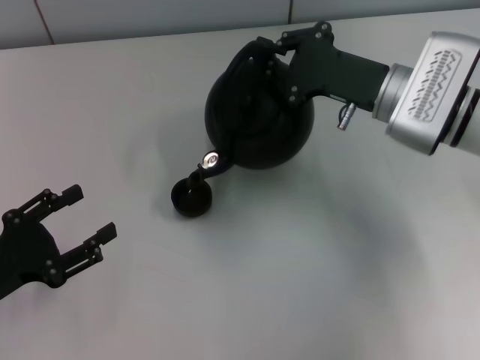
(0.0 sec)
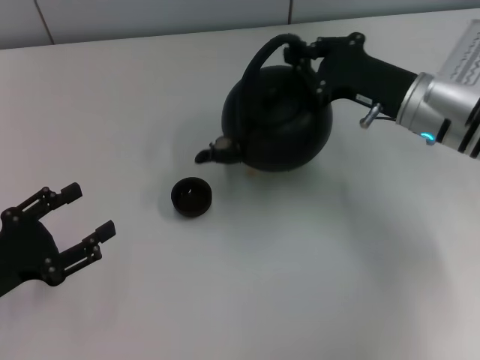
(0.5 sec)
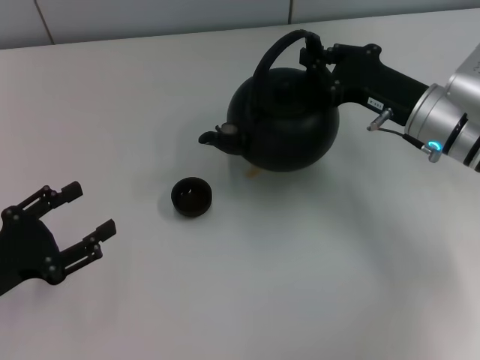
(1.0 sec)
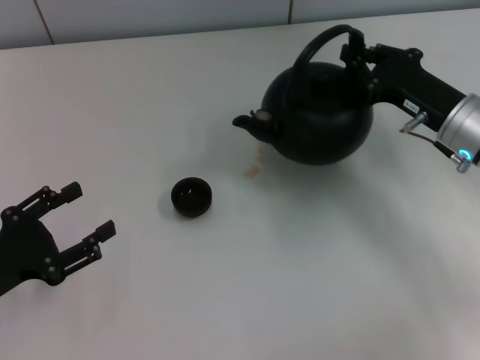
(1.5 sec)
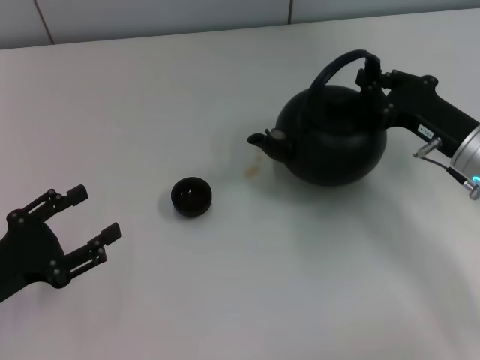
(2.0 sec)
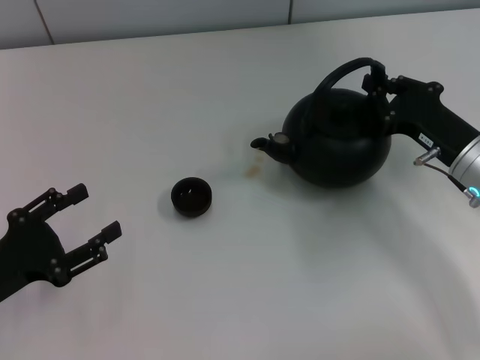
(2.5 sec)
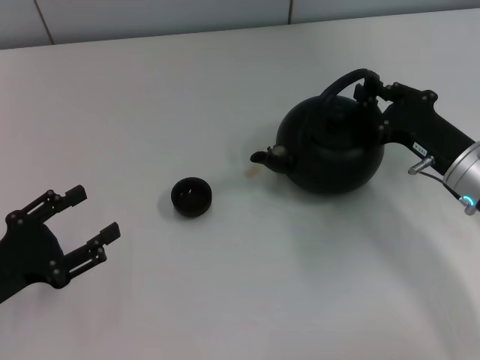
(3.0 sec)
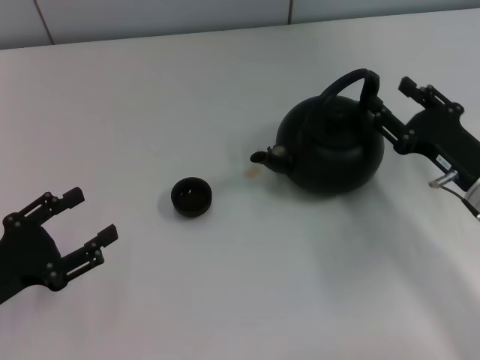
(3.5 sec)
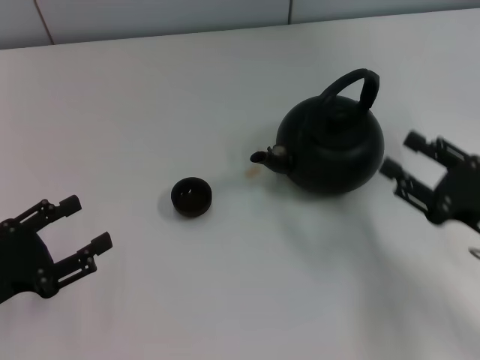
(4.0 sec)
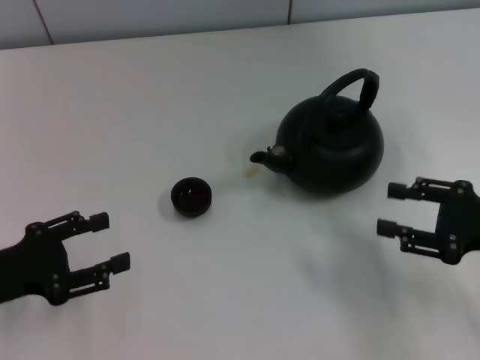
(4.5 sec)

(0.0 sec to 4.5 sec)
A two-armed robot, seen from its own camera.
Task of the whole recording: Grasp the handle of the teapot with one hand and pour tea into the teacup.
Step, 1.0 sec - 3.5 sec: Put down the teapot with the right gripper.
0.0 sec - 2.0 sec: The right gripper travels to the right and backward by some 10 cm.
2.0 sec - 4.5 sec: The right gripper shifts about 10 cm backward and to the right, and opens its fingers.

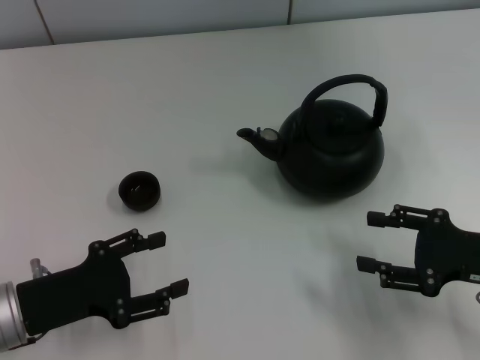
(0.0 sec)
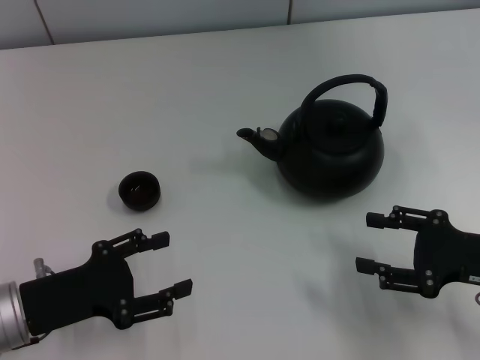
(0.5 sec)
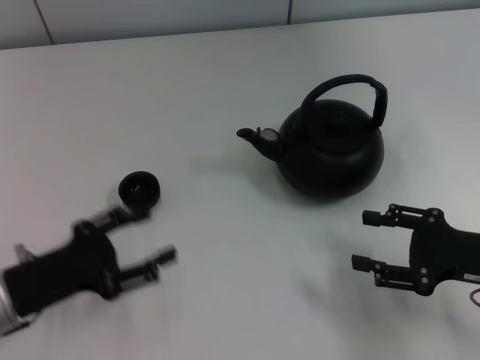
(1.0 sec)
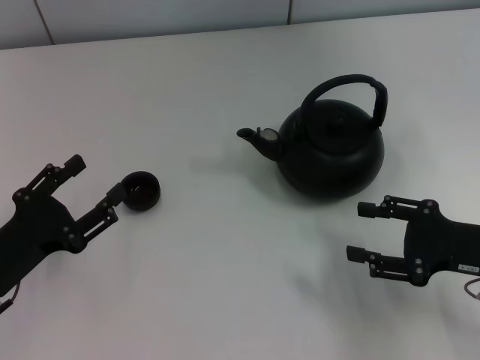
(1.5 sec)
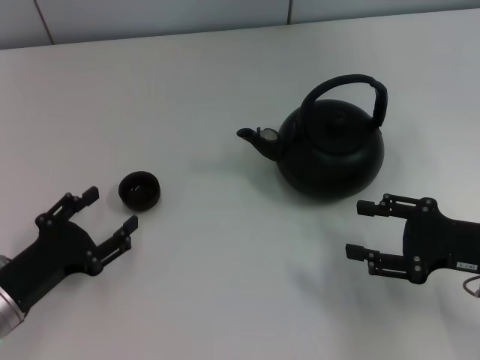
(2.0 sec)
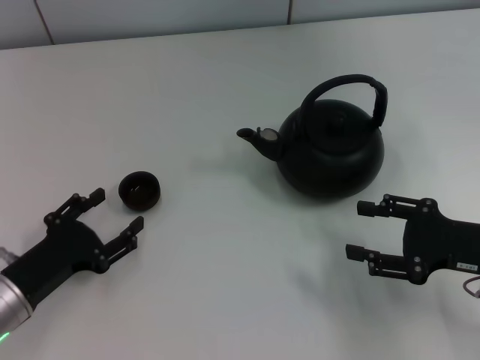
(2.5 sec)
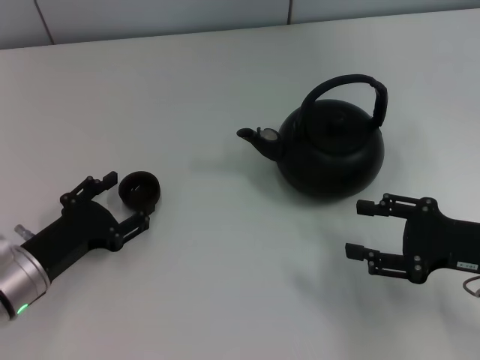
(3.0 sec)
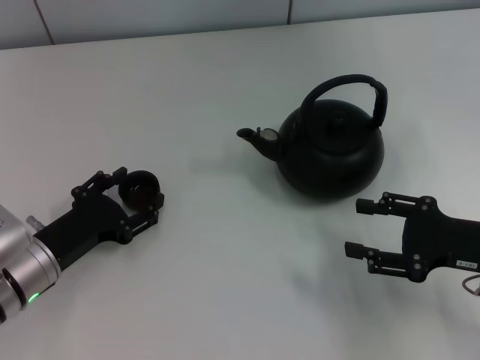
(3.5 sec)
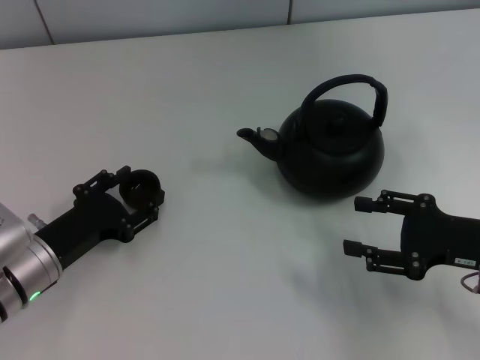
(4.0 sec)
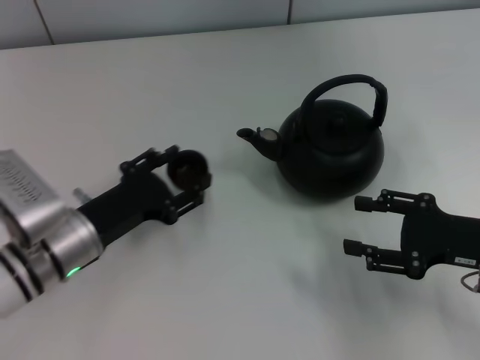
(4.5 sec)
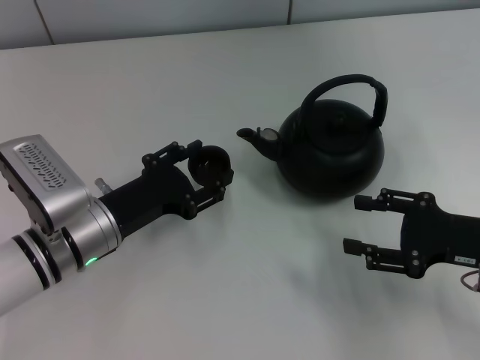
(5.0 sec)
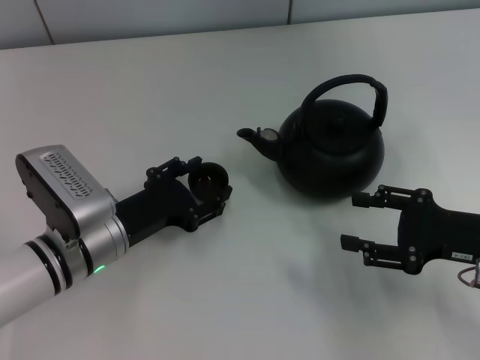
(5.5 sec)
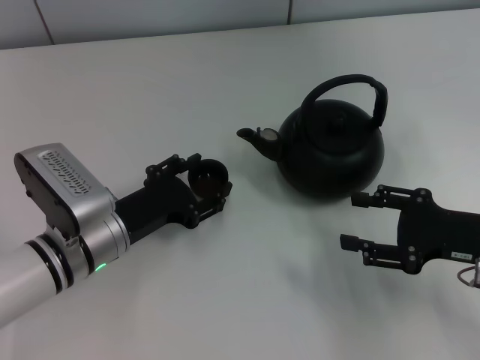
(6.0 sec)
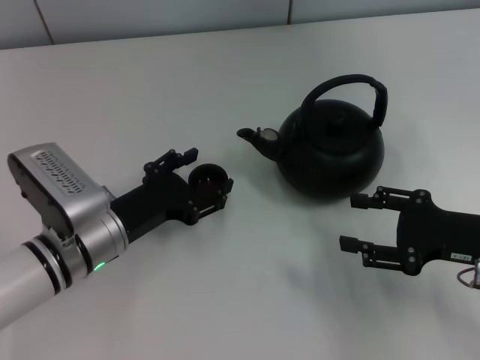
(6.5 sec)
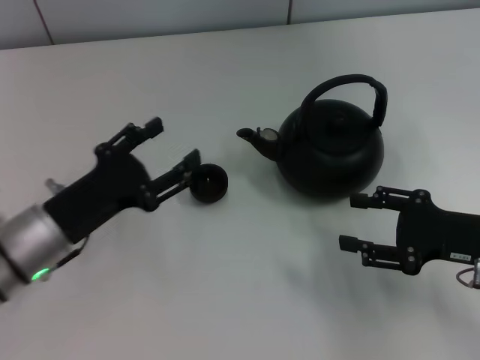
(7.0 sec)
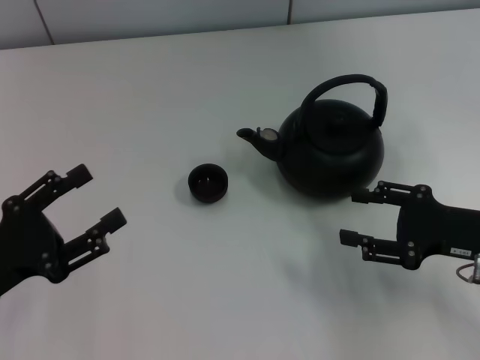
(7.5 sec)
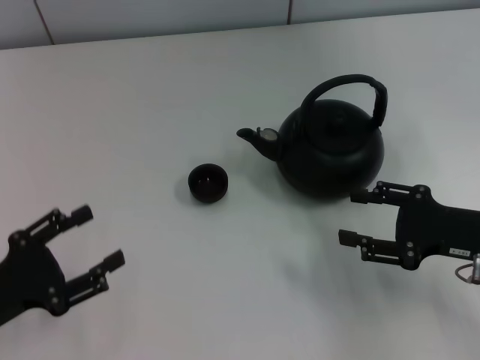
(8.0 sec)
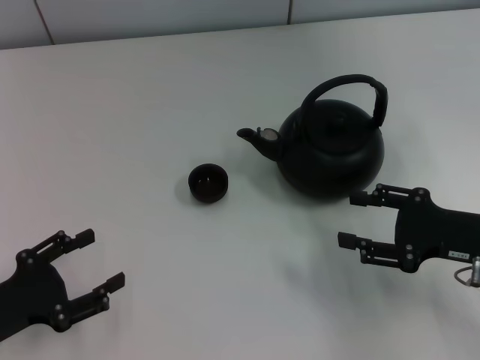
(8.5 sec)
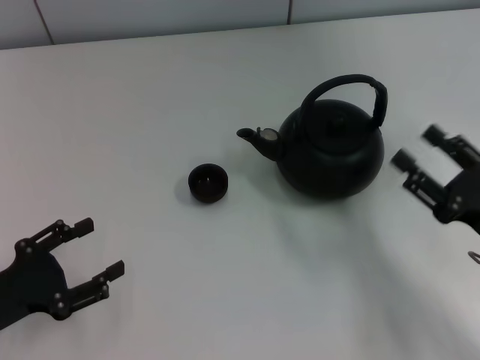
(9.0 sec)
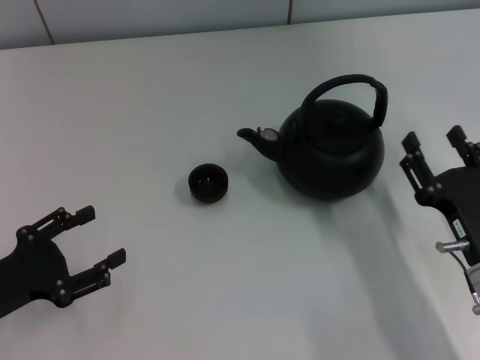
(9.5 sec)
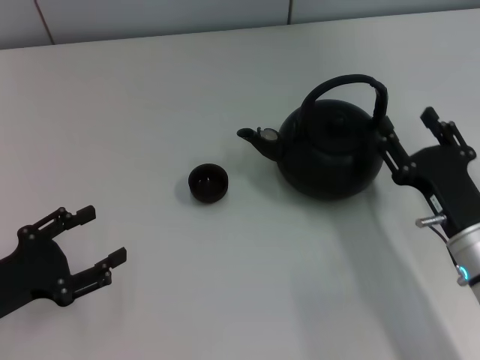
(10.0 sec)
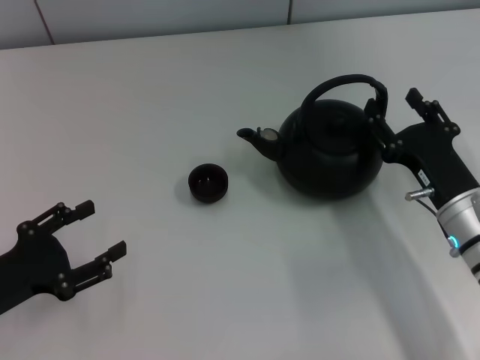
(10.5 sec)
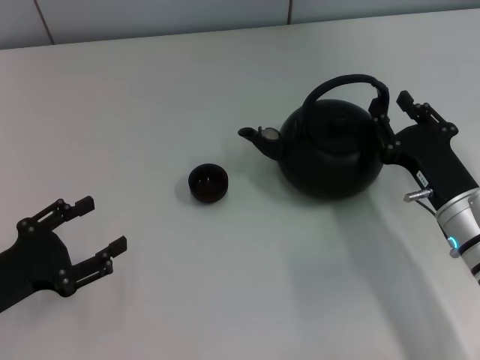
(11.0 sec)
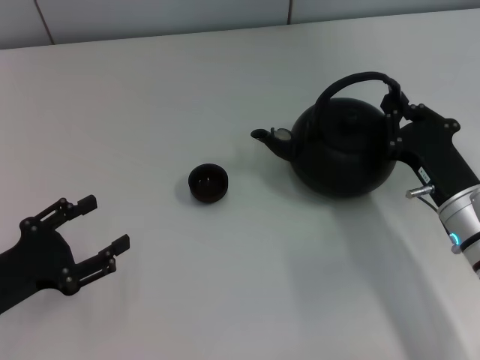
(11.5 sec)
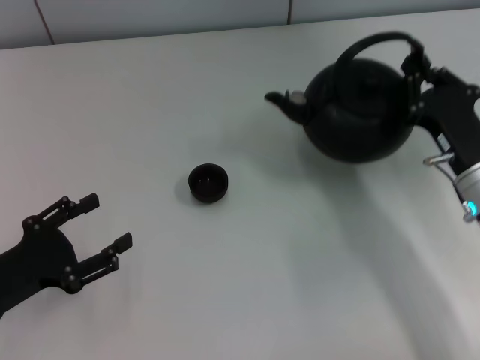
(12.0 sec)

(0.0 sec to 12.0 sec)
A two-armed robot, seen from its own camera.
Task of the whole recording: Grasp the handle of the teapot with one hand and pour tea into the teacup.
Step, 0.0 sec - 4.0 sec: Pick up the teacup with the left gripper.
Step, 4.5 sec - 7.0 sec: Place the teacup in the center of view with the left gripper.
Step, 7.5 sec - 12.0 sec: Pick up the teapot with the right gripper.
2.0 sec - 4.0 sec: The left gripper moves roughly 5 cm.
4.0 sec - 6.0 sec: The left gripper is displaced to the right by roughly 5 cm.
6.0 sec - 8.0 sec: The left gripper shifts roughly 15 cm to the left and backward.
8.0 sec - 10.0 sec: The right gripper travels to the left by some 5 cm.
10.0 sec - 12.0 sec: The right gripper heads forward, covering some 5 cm, and closes.

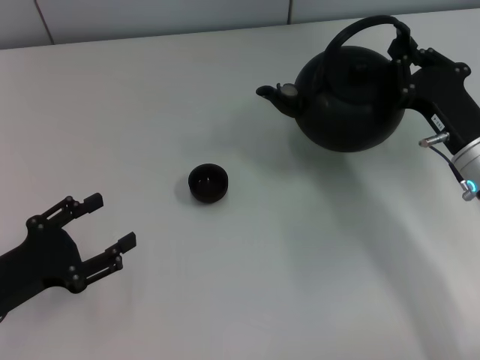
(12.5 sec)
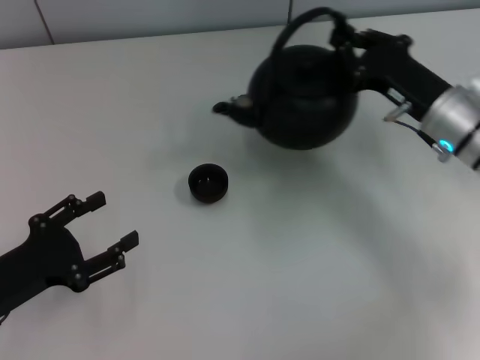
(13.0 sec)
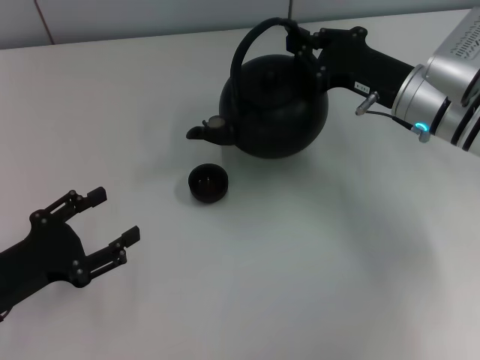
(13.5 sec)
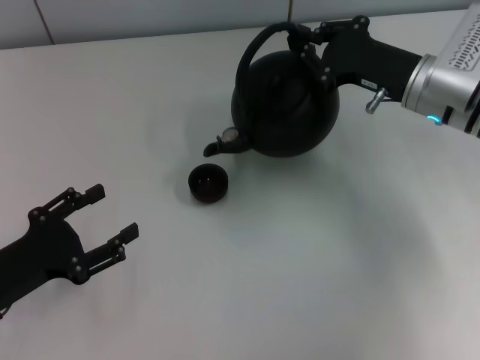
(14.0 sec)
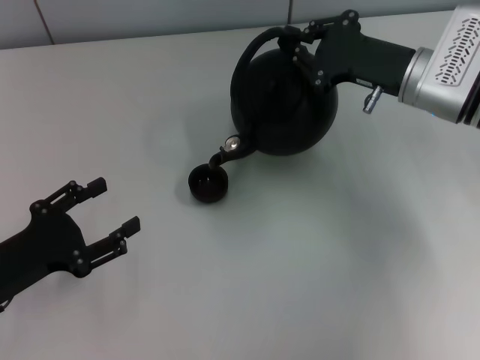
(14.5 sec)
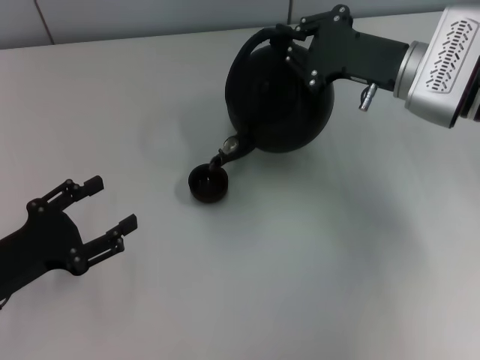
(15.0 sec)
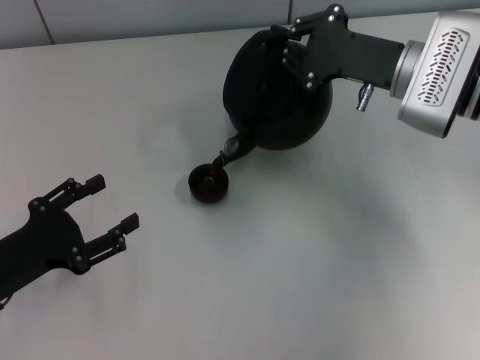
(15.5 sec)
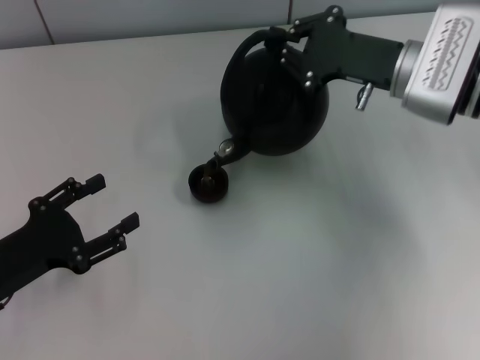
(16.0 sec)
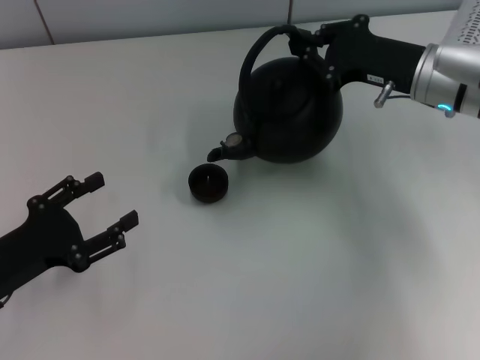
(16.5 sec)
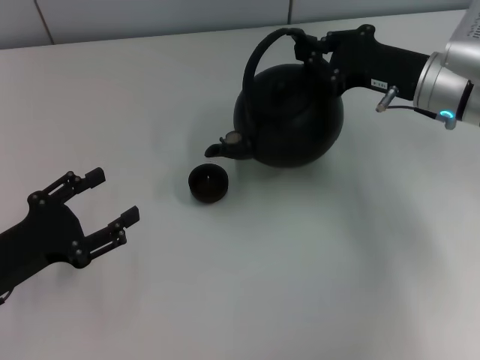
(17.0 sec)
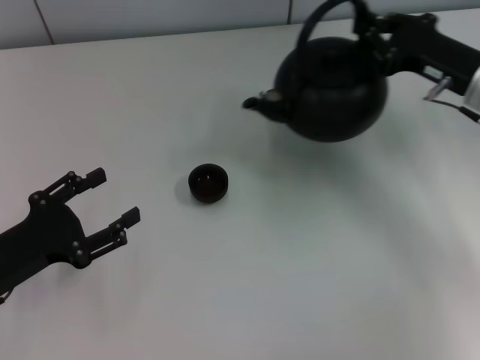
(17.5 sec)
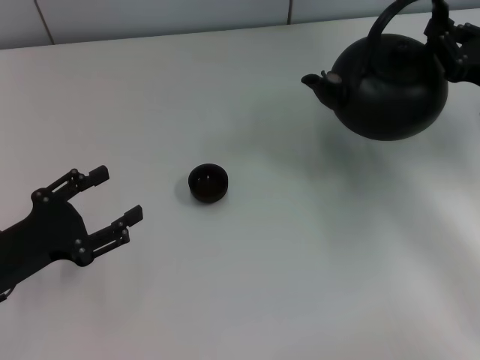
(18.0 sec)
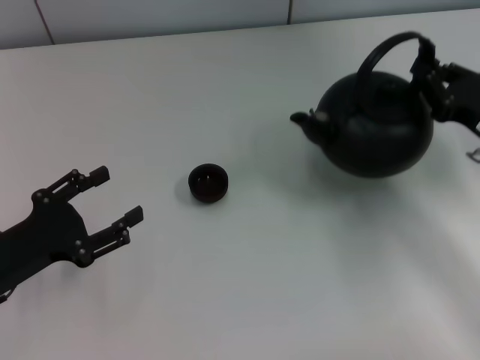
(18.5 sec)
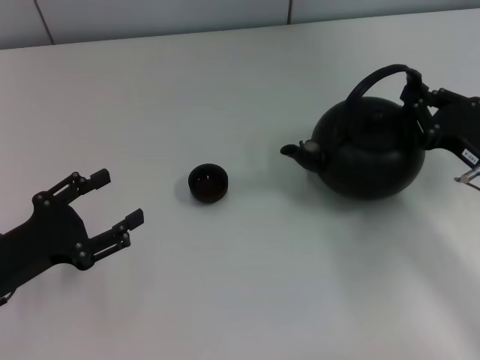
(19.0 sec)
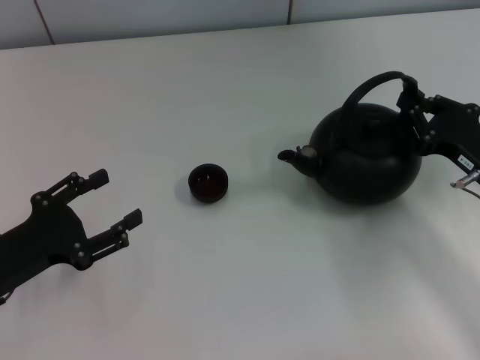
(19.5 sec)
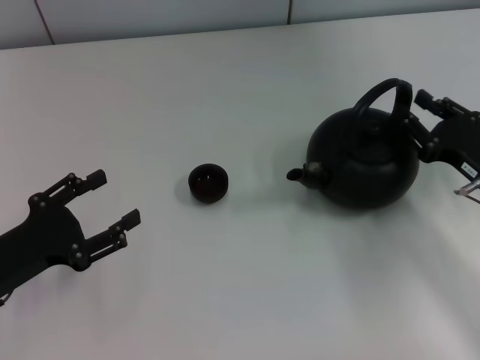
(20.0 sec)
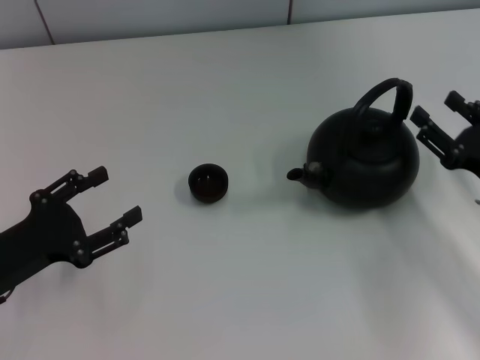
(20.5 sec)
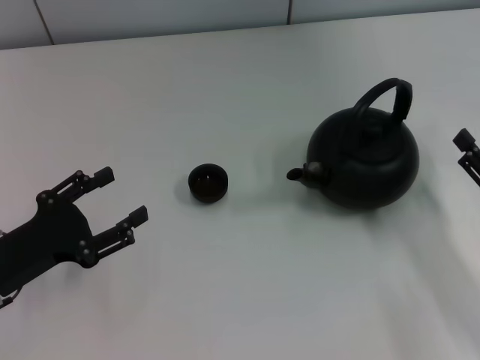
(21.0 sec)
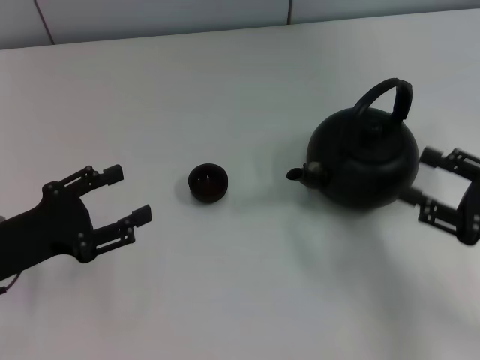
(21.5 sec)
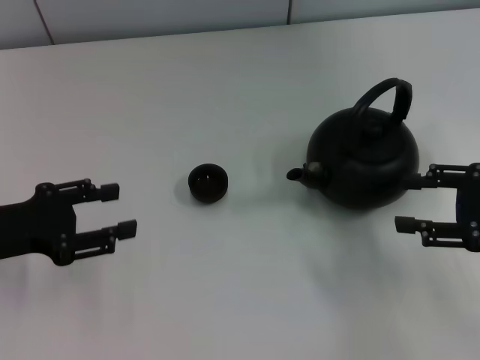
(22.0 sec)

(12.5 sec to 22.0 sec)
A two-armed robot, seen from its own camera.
Task of the whole recording: Grasp the handle of the teapot with one hand and pour tea into the teacup.
Step, 17.5 sec - 20.5 sec: Put down the teapot with the right gripper.
12.5 sec - 14.5 sec: The right gripper travels forward and upward by approximately 10 cm.
14.5 sec - 16.5 sec: The grippers make only small movements.
16.5 sec - 18.0 sec: The right gripper travels to the right and backward by about 10 cm.
18.0 sec - 20.0 sec: The right gripper moves downward and backward, approximately 10 cm.
20.0 sec - 22.0 sec: Both grippers move upward, some 5 cm. The right gripper opens up.
